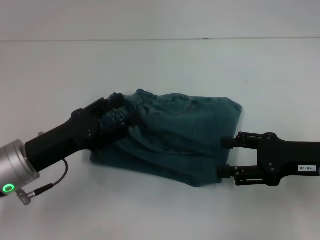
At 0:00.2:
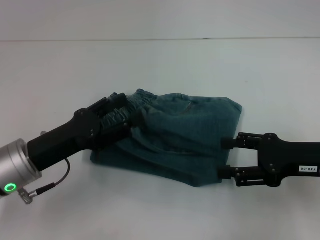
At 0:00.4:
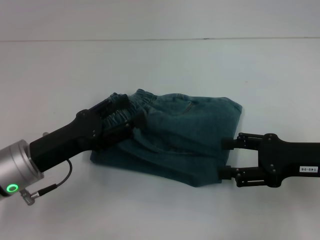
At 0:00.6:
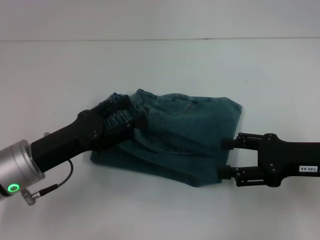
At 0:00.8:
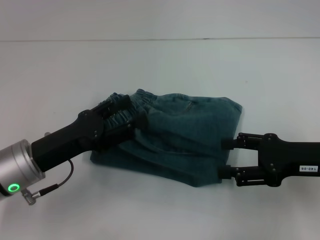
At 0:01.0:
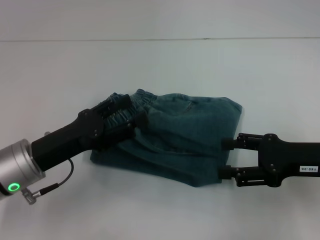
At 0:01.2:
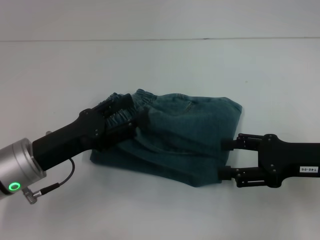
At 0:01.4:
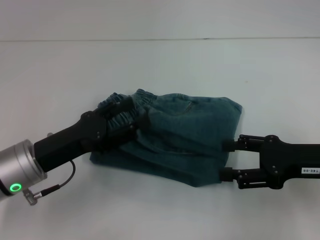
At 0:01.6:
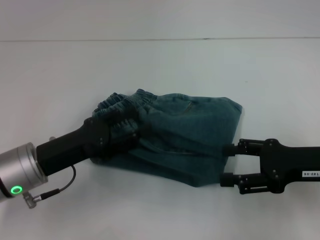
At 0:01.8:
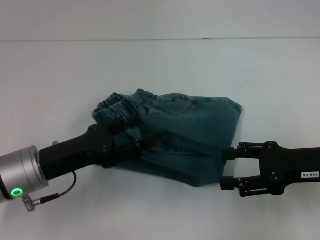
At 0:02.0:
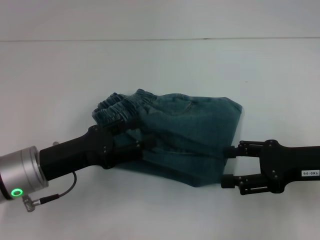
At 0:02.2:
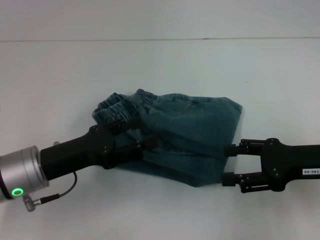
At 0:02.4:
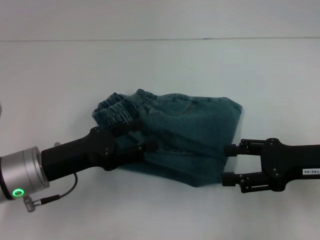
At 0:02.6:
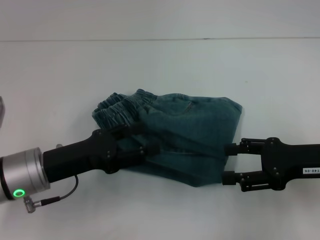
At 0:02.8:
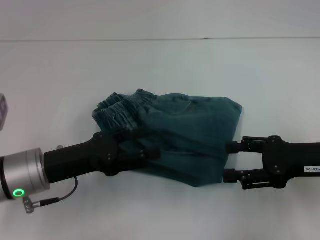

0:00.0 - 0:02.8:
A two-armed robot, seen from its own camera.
0:00.0 - 0:01.4: Both grippers stay about where they are.
0:01.4 - 0:02.8: There are only small adjustments of the grippers.

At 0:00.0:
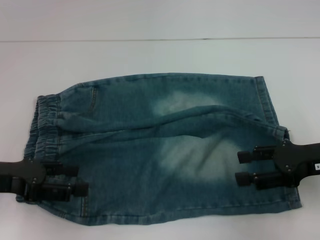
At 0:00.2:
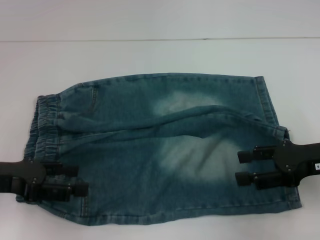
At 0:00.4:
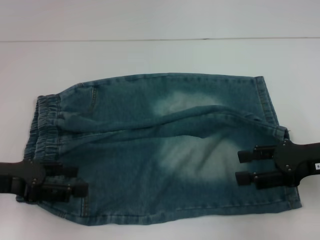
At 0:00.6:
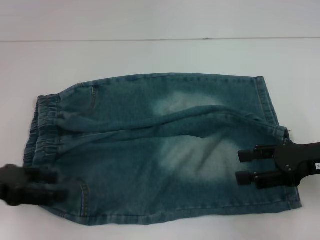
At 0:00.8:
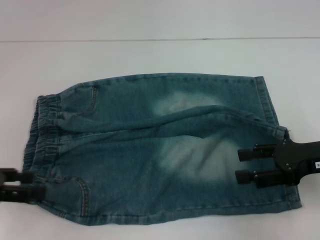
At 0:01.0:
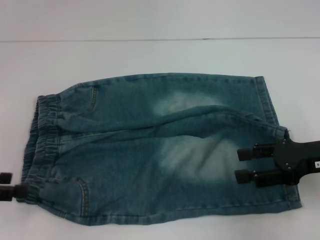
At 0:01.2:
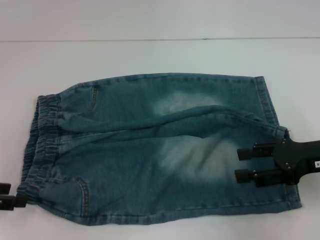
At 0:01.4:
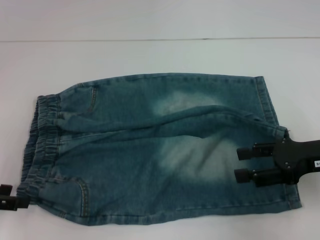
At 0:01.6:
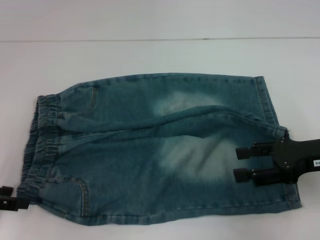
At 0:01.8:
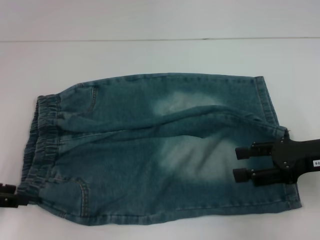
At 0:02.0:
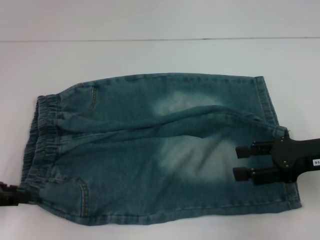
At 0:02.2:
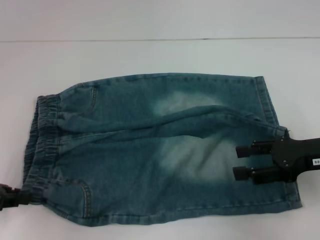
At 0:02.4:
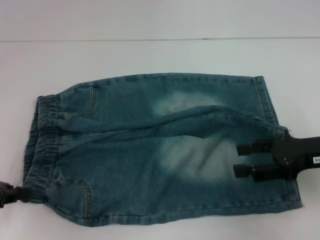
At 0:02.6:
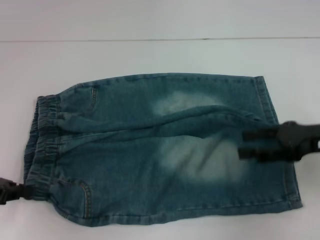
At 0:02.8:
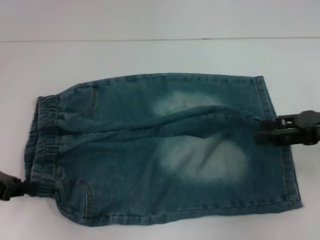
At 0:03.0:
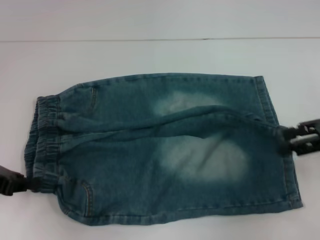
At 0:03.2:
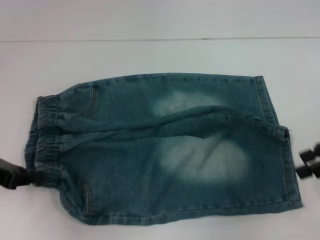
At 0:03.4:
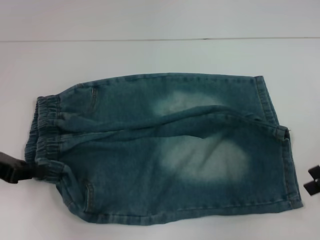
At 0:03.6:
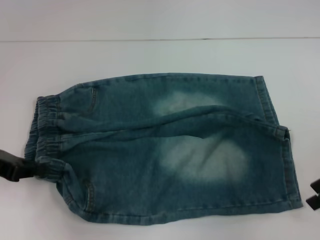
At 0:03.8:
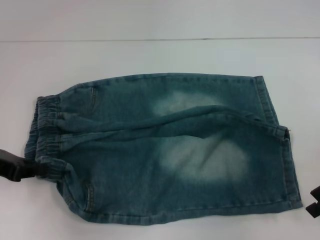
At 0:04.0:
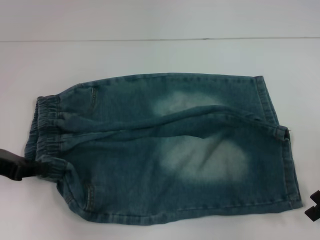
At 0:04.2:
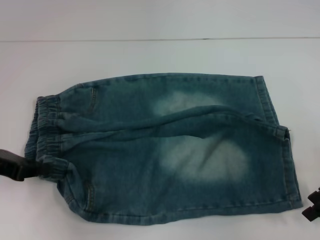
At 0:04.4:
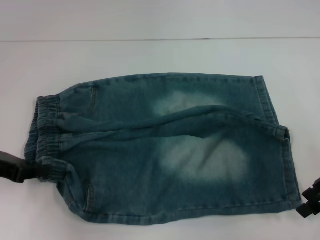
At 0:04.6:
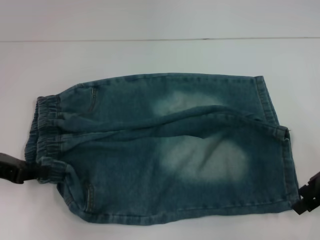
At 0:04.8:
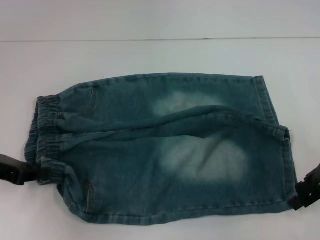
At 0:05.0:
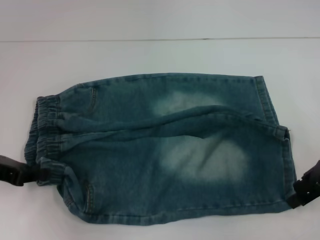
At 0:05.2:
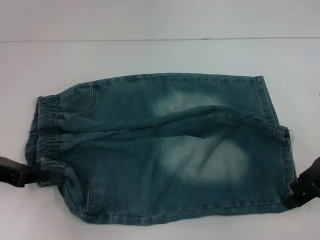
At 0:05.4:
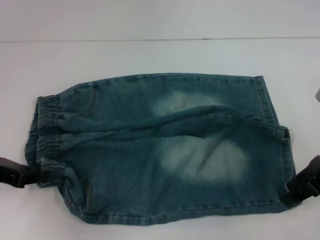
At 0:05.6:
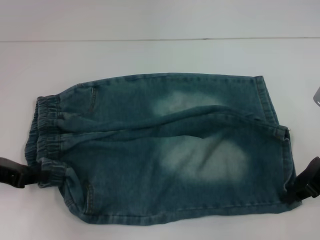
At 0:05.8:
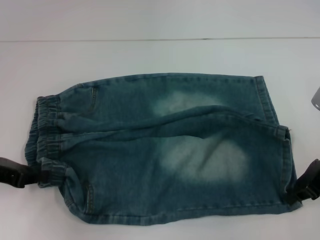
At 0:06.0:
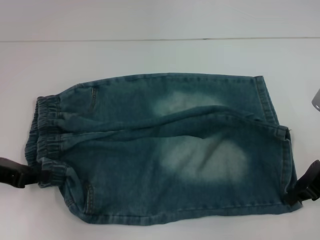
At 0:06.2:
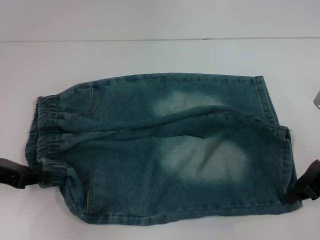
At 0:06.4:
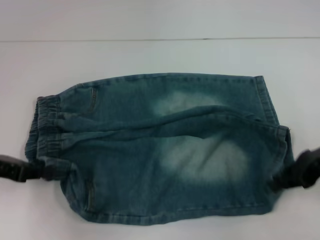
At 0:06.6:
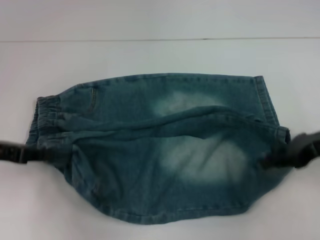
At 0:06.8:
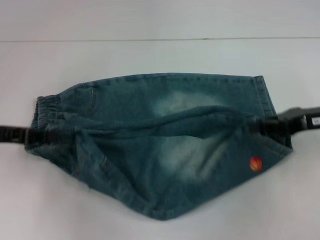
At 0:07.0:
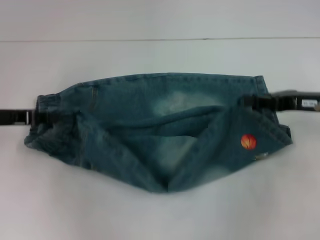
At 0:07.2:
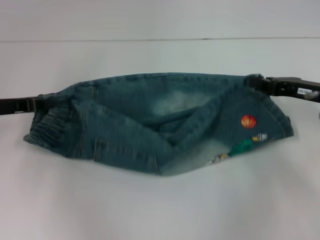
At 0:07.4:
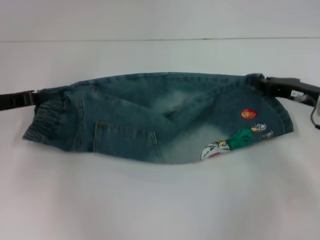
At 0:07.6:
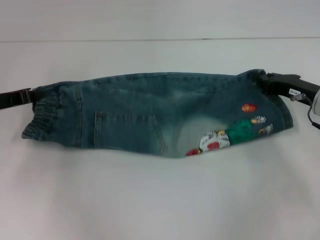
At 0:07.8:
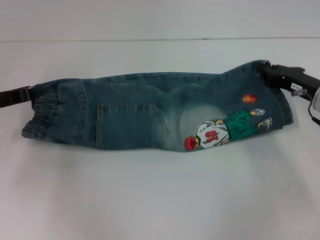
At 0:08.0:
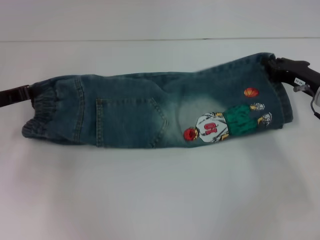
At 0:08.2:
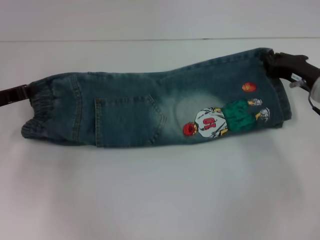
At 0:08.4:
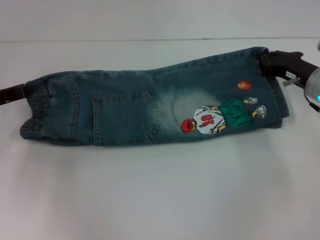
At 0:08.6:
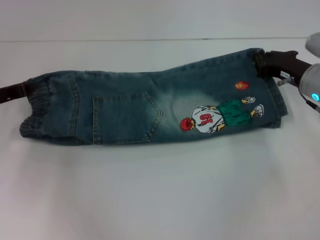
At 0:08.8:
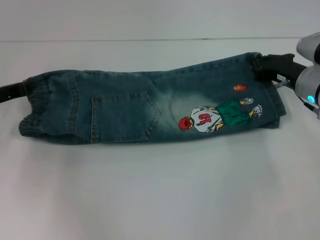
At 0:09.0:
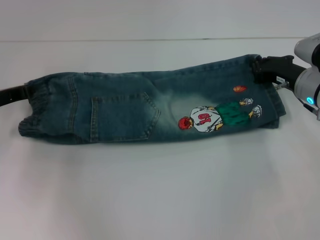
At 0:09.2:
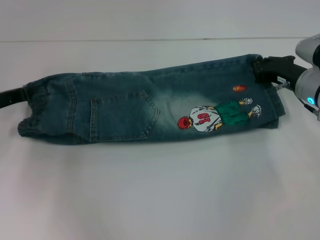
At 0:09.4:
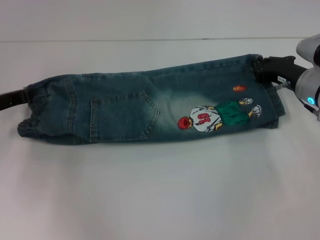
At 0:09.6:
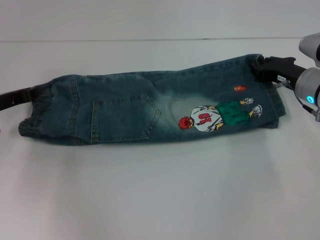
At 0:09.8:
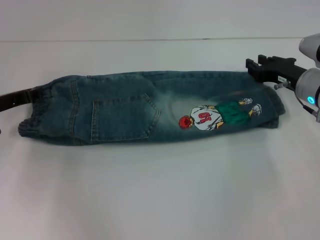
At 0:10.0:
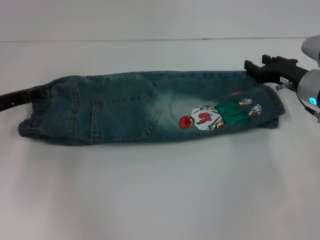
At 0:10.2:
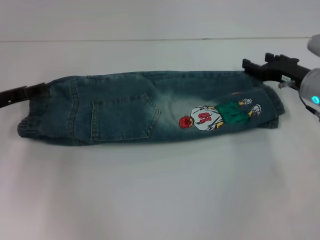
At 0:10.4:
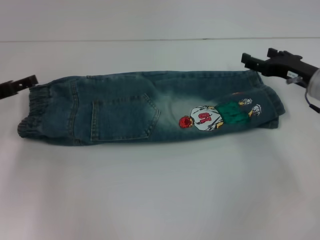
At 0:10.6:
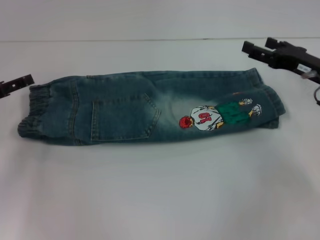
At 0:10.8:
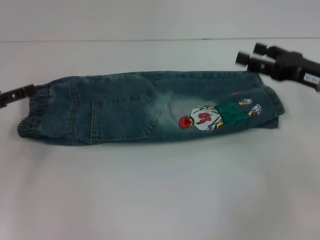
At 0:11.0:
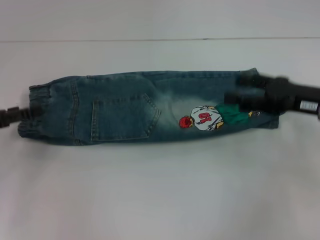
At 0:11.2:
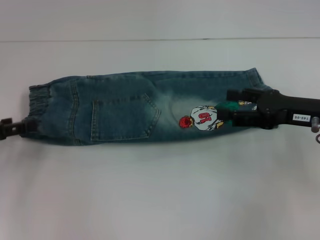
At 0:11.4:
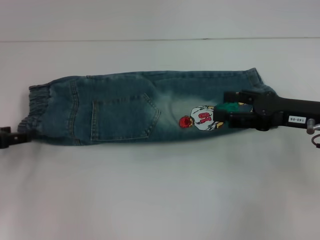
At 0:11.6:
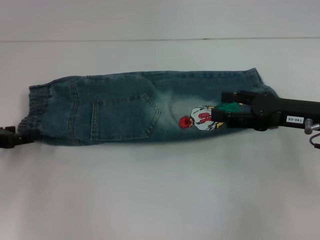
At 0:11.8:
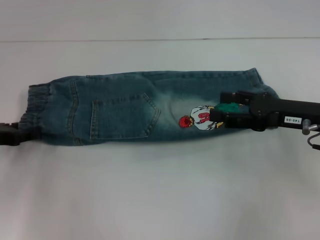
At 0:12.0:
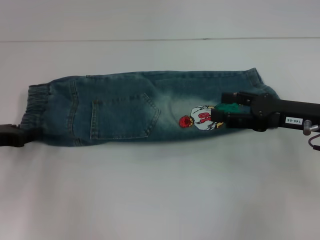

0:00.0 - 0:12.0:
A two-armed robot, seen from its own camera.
Step, 0:00.0 - 0:02.8: Hold the lower left waistband with your left hand.
Step, 0:03.0 - 0:06.0: Grab the lower right pant leg with your right hand.
Step, 0:06.2 - 0:10.6: Fold upward with your right hand.
0:00.0 - 0:01.6: The left gripper travels to the left by approximately 5 cm.
0:01.6 - 0:03.0: The left gripper closes its fingers. Meanwhile the right gripper heads upward, covering about 5 cm.
0:04.4 - 0:06.0: The right gripper closes its fingers.
0:06.0 - 0:07.6: The right gripper shifts by some 5 cm; the left gripper goes about 5 cm forward.
0:07.6 - 0:09.0: The grippers move only a little.
0:09.0 - 0:10.4: The right gripper opens up. Meanwhile the left gripper opens up.
0:10.4 - 0:12.0: The right gripper is displaced backward by roughly 5 cm.

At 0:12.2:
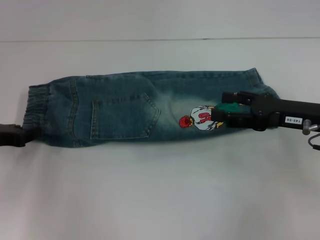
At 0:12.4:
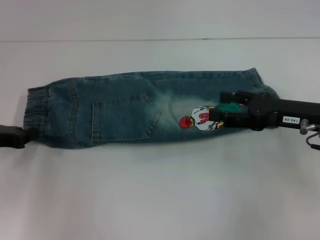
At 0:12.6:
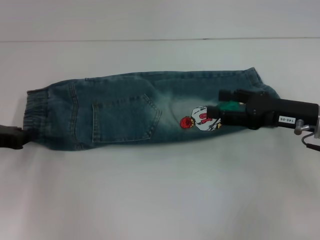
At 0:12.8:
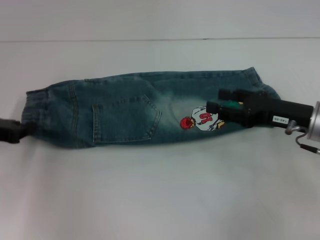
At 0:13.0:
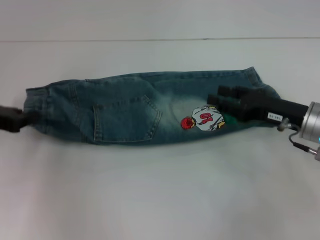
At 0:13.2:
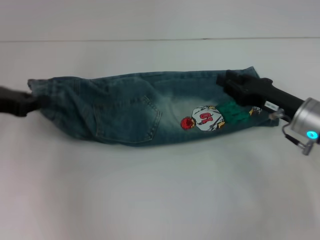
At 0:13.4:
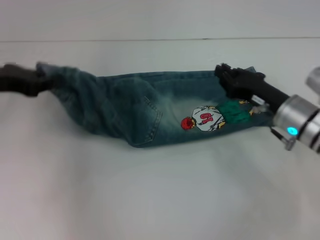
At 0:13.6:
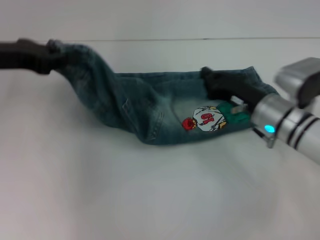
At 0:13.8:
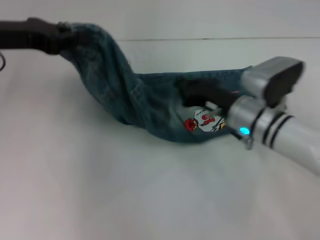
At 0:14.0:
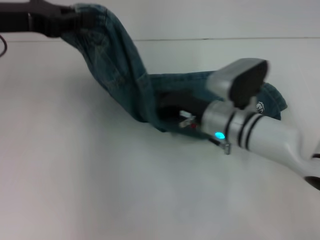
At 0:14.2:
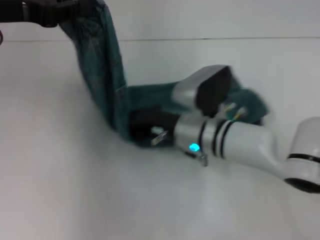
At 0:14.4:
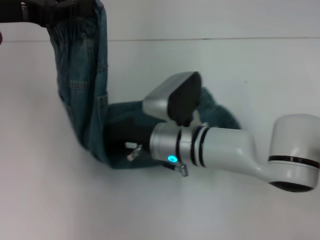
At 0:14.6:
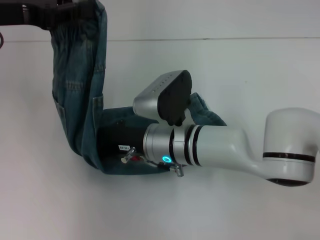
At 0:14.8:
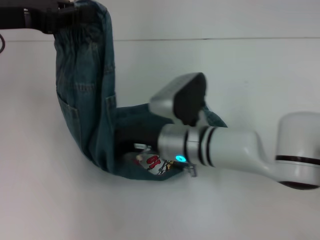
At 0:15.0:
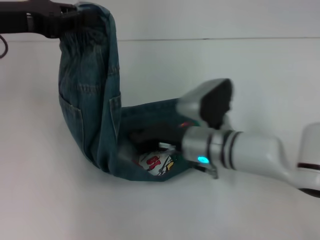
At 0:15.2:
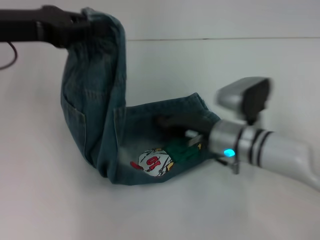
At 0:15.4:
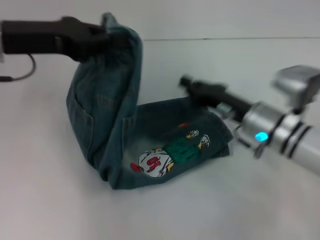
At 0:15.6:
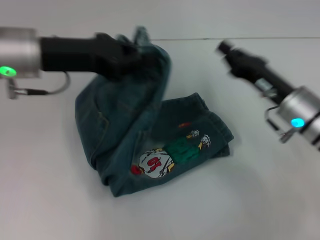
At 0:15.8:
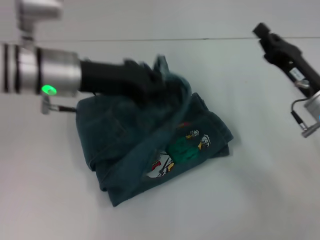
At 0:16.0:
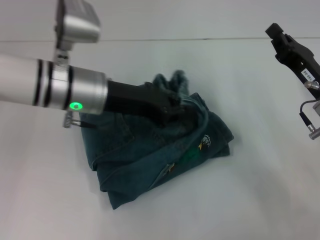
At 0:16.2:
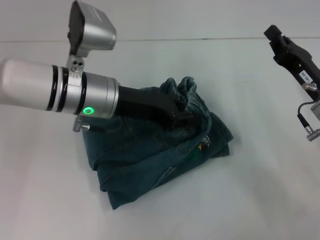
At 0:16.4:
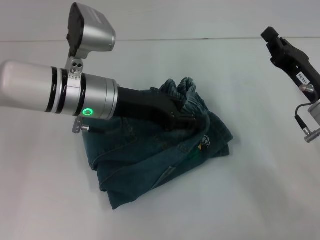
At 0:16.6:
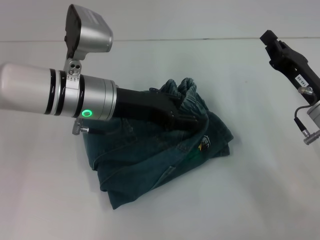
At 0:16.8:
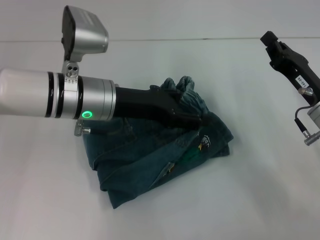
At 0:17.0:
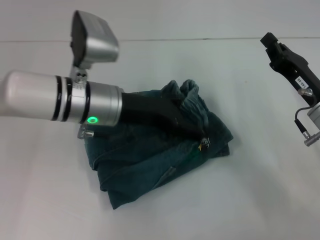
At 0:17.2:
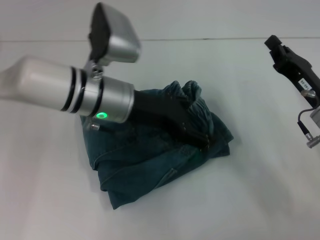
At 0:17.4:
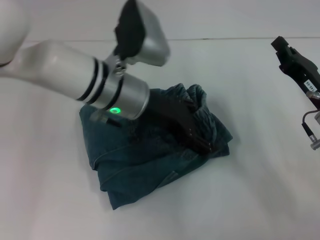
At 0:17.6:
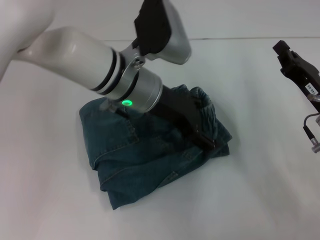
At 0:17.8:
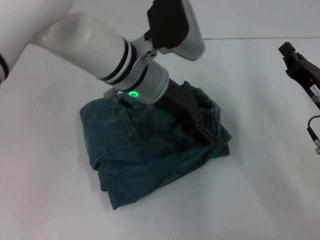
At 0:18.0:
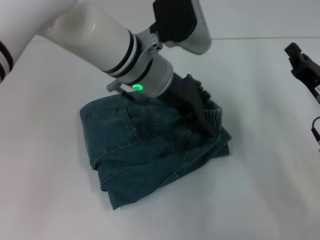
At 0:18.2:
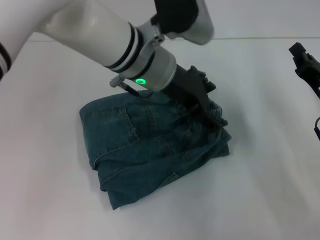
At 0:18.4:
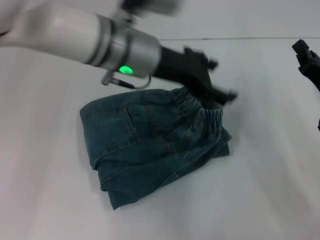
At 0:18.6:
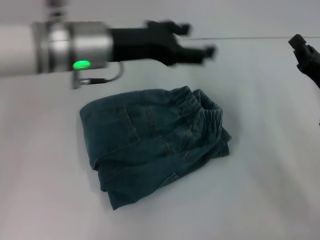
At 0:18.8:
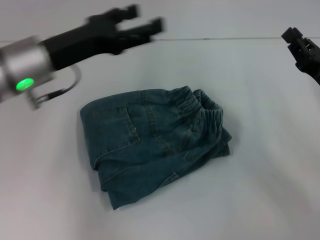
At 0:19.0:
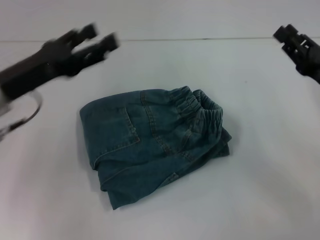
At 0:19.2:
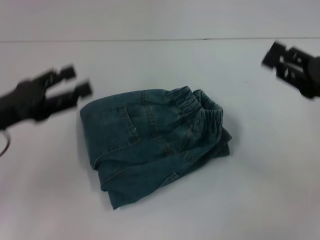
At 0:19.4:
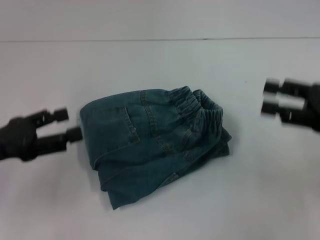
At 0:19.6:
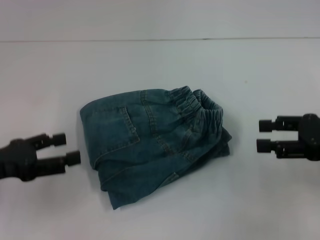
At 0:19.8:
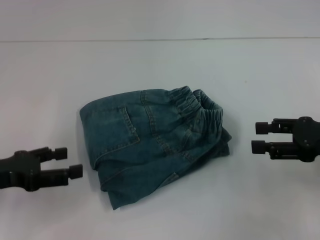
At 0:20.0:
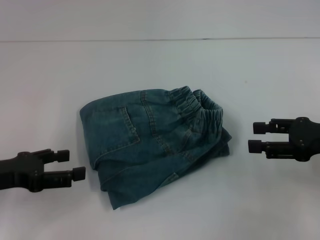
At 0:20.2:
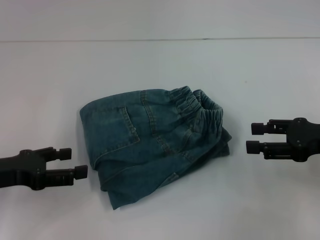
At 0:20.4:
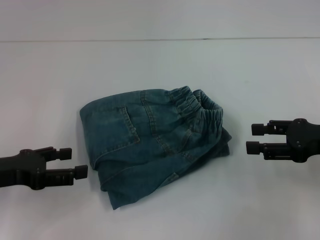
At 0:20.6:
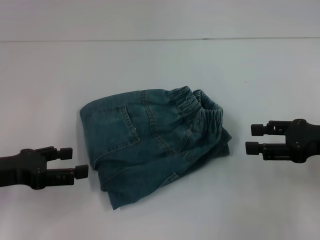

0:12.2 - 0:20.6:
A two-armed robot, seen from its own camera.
Step, 0:13.2 - 0:14.8: Press the middle of the pants with your right hand.
Step, 0:15.0 - 0:18.4: Fold to the right with your left hand.
0:12.2 - 0:13.6: The left gripper is displaced upward by roughly 10 cm. Meanwhile the right gripper shifts roughly 10 cm to the left and downward, and closes.
0:13.6 - 0:15.0: The right gripper heads to the left, covering roughly 10 cm.
0:15.0 - 0:16.4: The right gripper travels to the right by some 15 cm. Meanwhile the left gripper goes about 20 cm to the right and downward.
0:16.4 - 0:17.8: The left gripper is displaced to the right by roughly 10 cm, and opens up.
0:17.8 - 0:19.2: The right gripper heads upward, covering roughly 5 cm; the left gripper moves to the left and backward, roughly 25 cm.
0:19.2 - 0:20.6: The right gripper opens.
